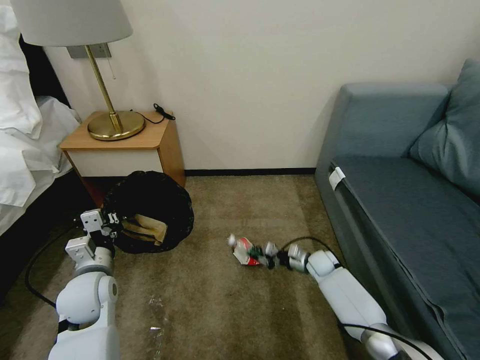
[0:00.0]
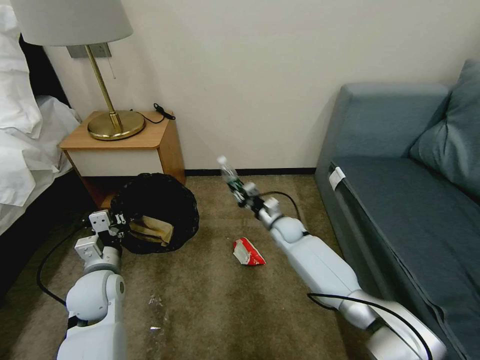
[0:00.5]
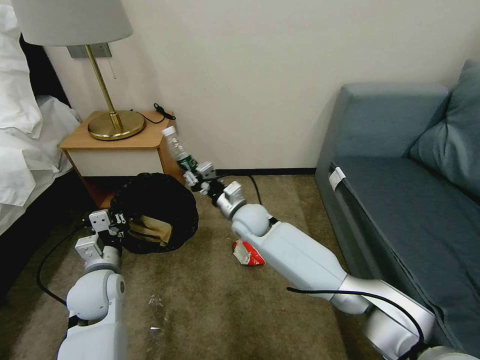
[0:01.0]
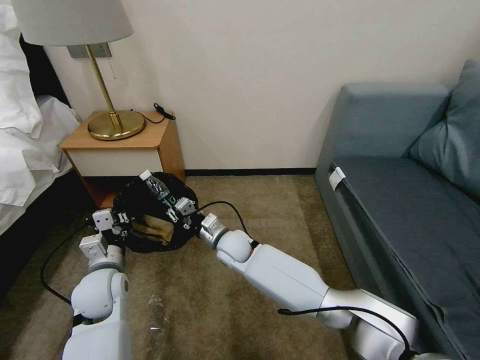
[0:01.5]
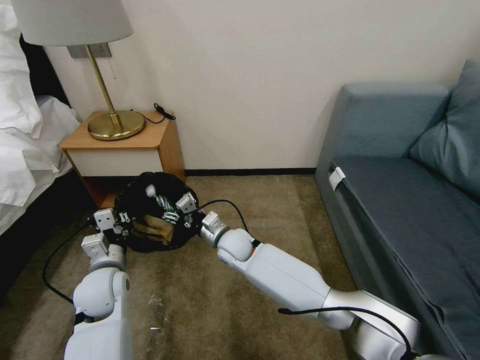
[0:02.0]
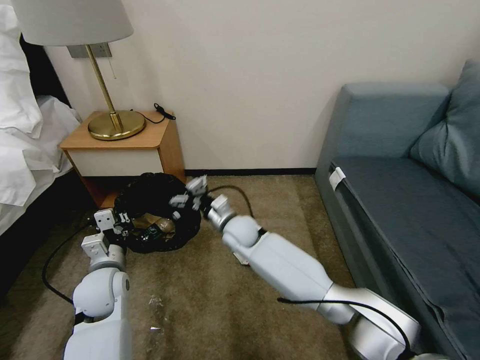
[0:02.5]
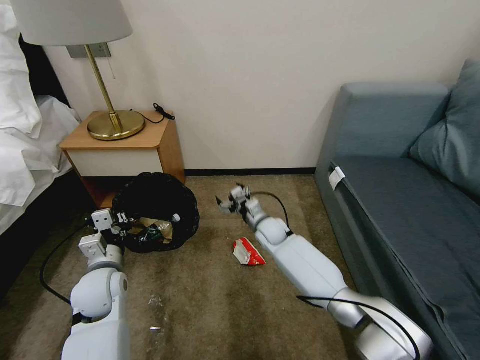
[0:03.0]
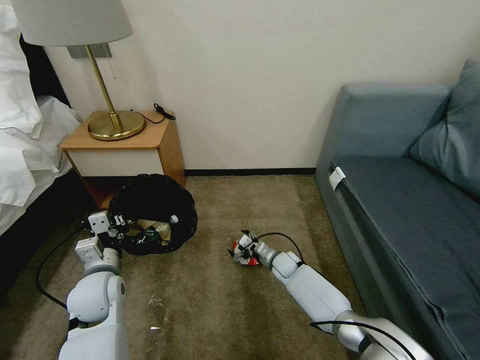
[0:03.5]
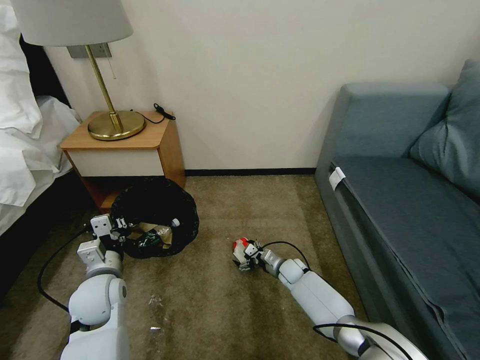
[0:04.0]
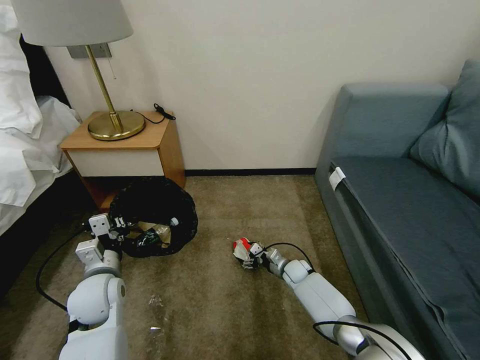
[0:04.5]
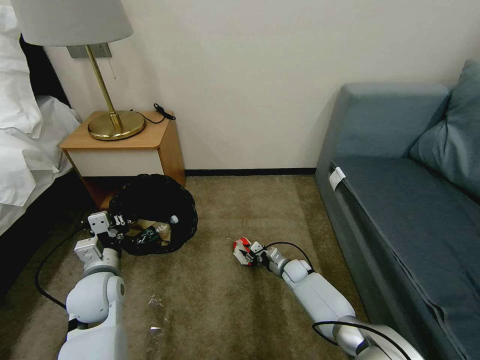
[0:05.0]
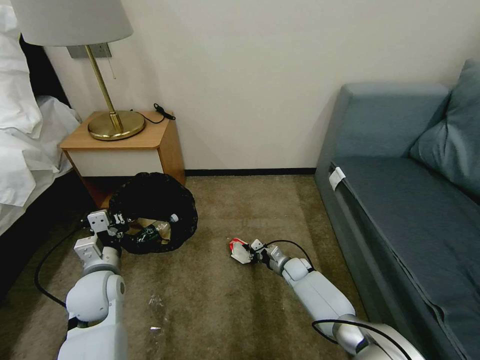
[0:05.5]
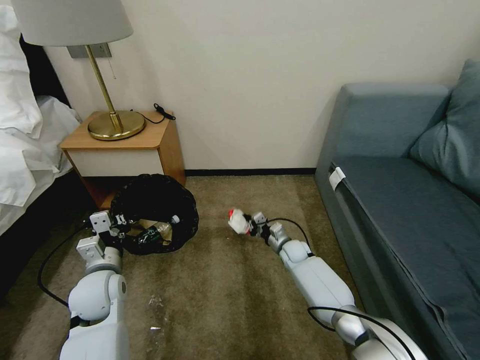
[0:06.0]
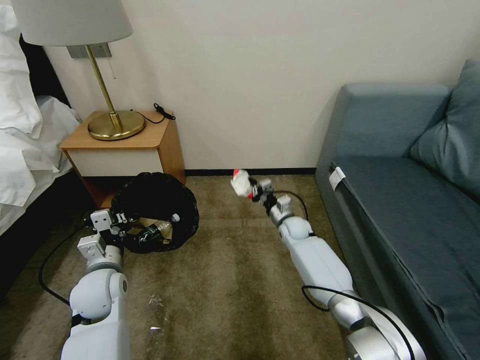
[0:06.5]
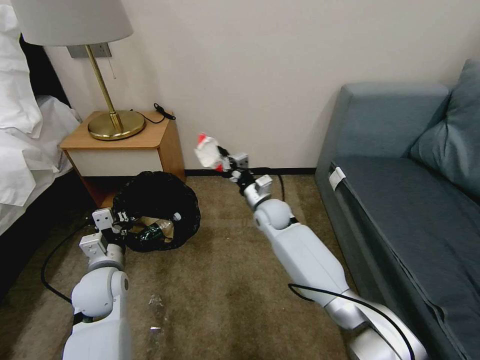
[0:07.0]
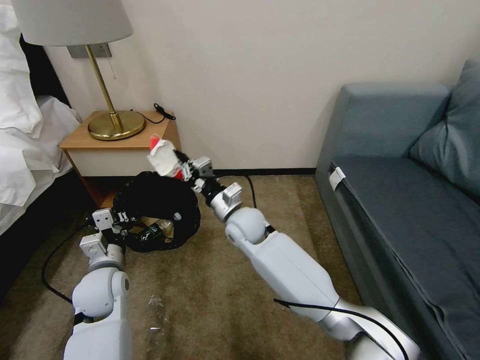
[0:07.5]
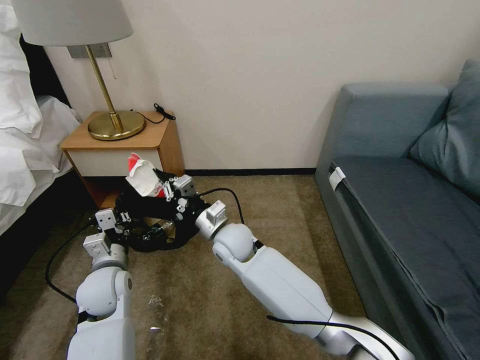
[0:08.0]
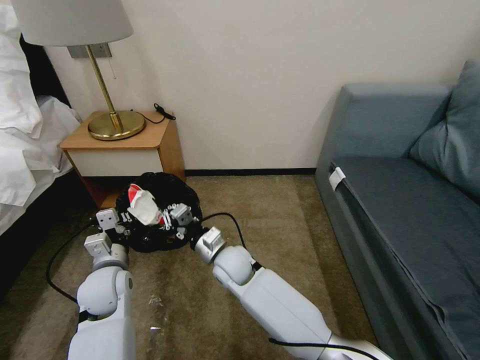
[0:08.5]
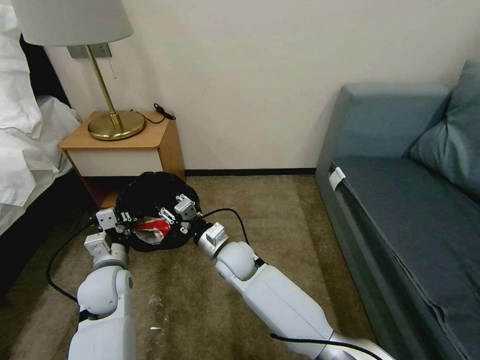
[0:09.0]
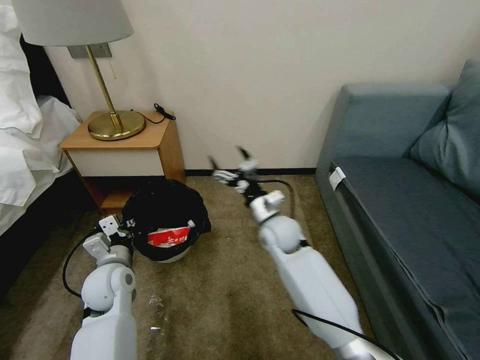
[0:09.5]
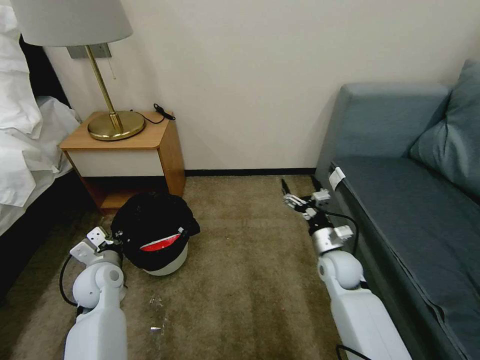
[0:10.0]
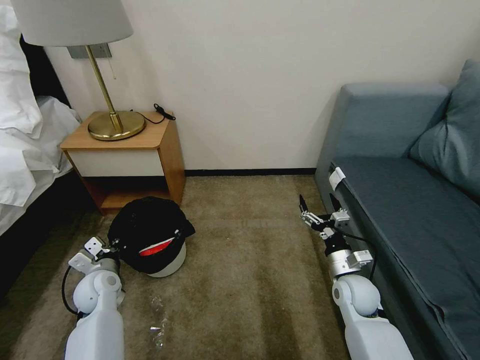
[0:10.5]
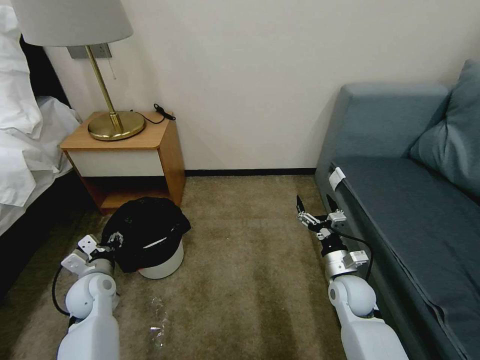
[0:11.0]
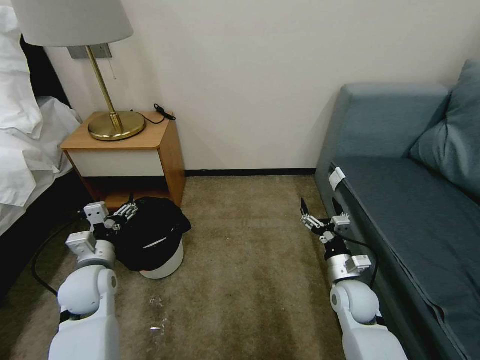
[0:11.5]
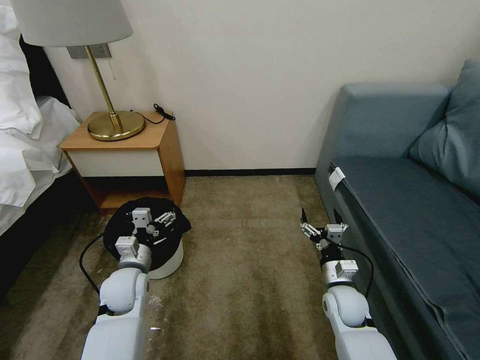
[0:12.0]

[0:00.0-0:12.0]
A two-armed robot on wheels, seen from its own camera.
Task of the whole recording: Pick up the trash bin, then pick up the garbage on the floor and place it into the trash bin.
0:00.0 to 0:02.0: The right gripper heads to the left and upward, covering about 30 cm, and opens its fingers.
0:02.0 to 0:04.0: The right gripper travels to the right and downward by approximately 25 cm.
0:04.0 to 0:06.0: The right gripper goes about 5 cm upward, and closes.
0:06.0 to 0:08.0: The right gripper shifts some 30 cm to the left and upward.
0:08.0 to 0:10.0: The left gripper changes place by some 5 cm. The right gripper moves to the right, some 30 cm, and opens.
0:10.0 to 0:12.0: The right gripper shifts some 10 cm backward and downward. Meanwhile the left gripper moves up and down over about 10 cm, changing direction 2 times, and opens.
